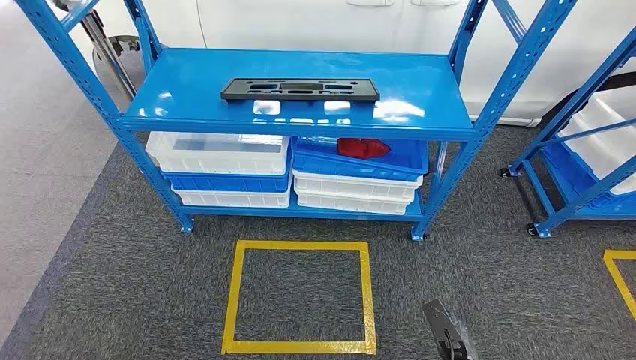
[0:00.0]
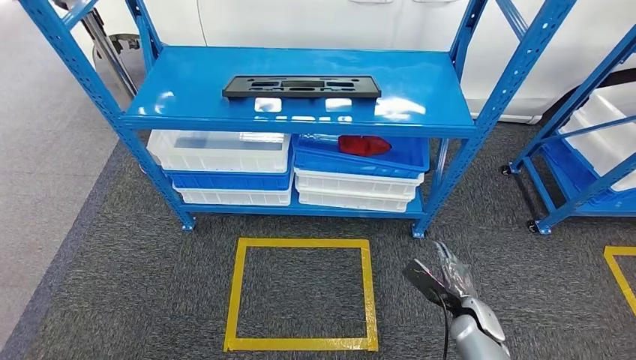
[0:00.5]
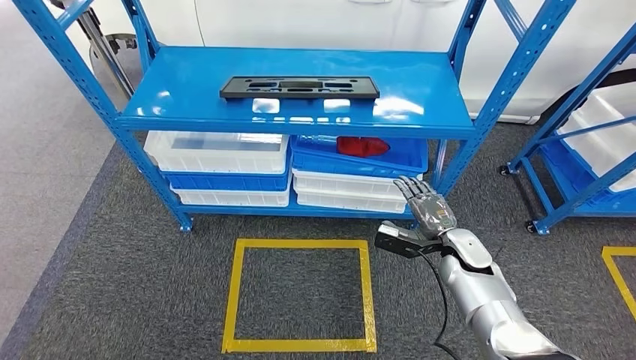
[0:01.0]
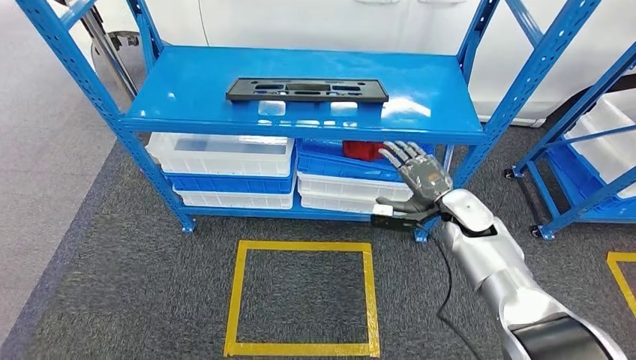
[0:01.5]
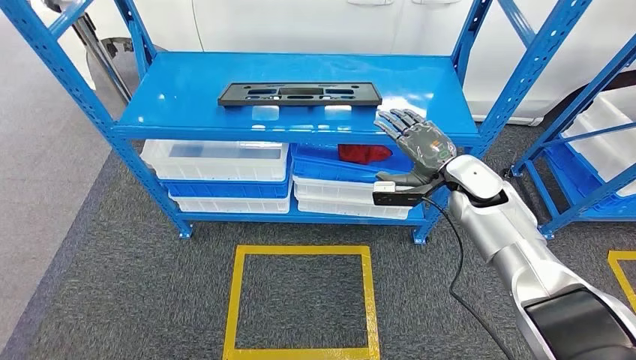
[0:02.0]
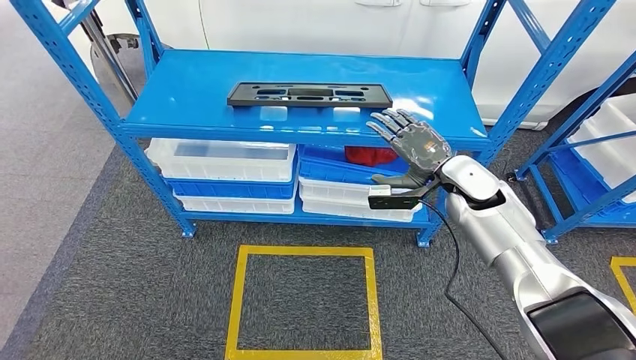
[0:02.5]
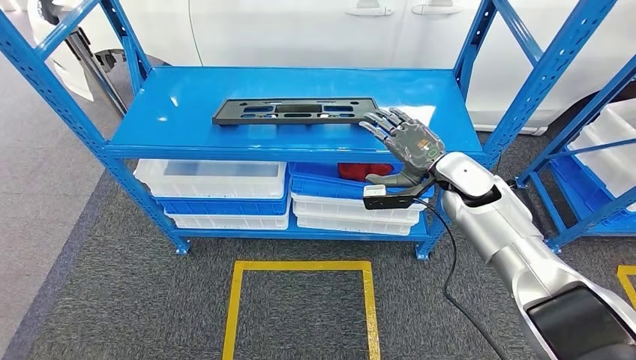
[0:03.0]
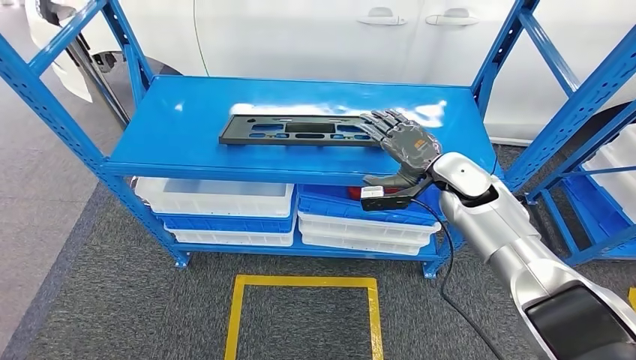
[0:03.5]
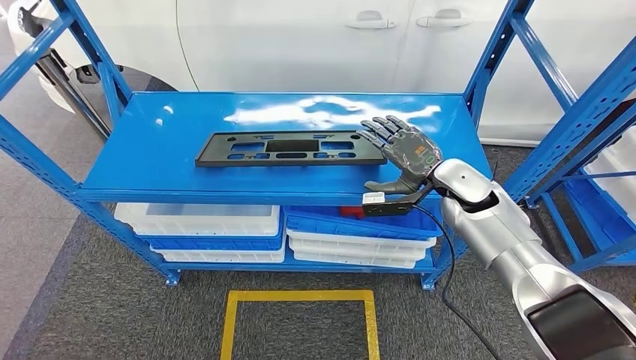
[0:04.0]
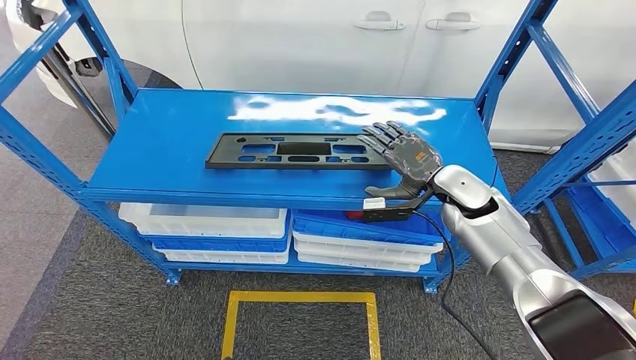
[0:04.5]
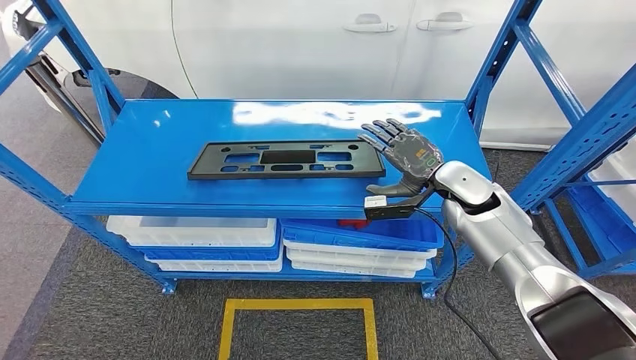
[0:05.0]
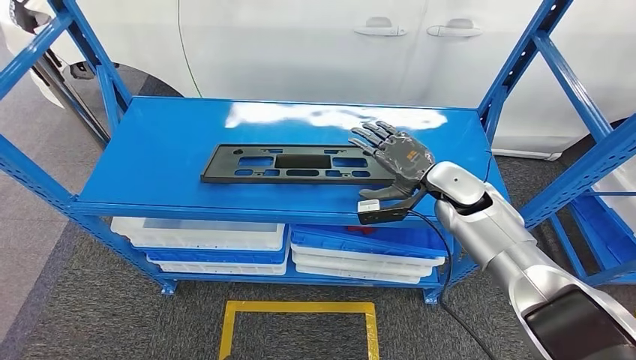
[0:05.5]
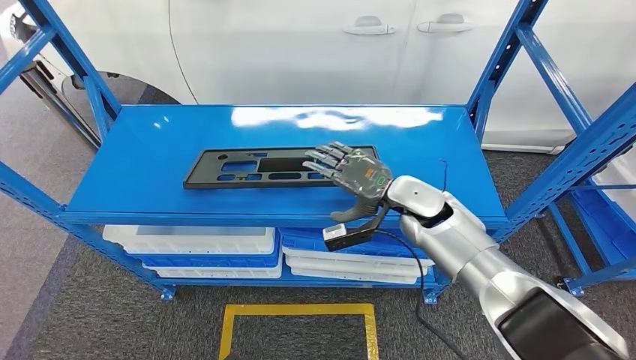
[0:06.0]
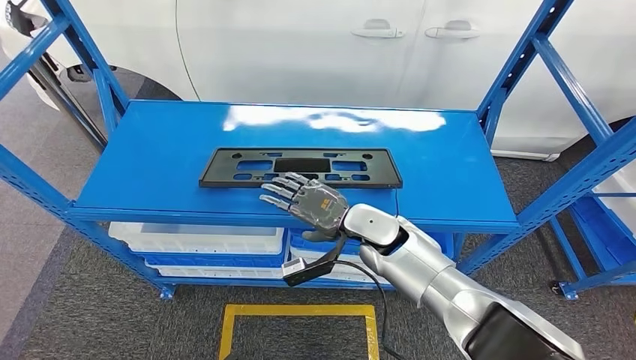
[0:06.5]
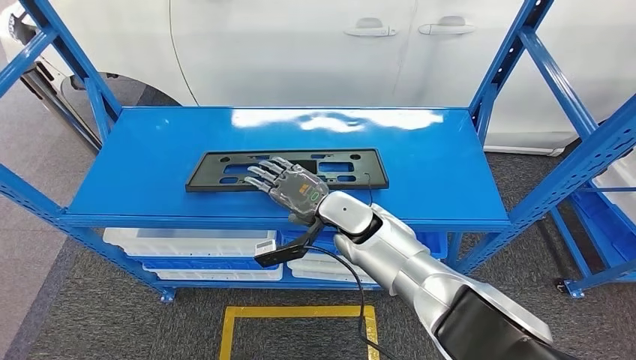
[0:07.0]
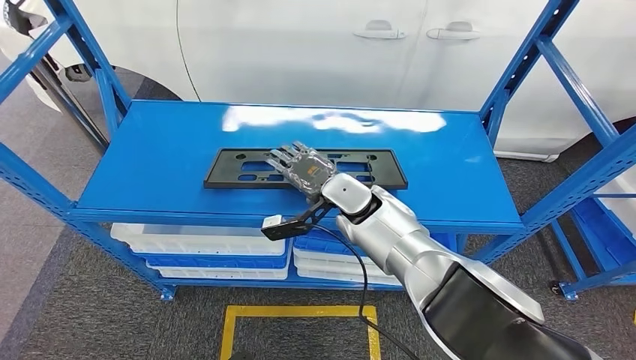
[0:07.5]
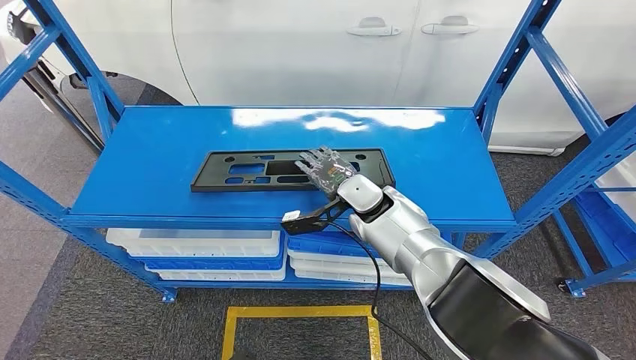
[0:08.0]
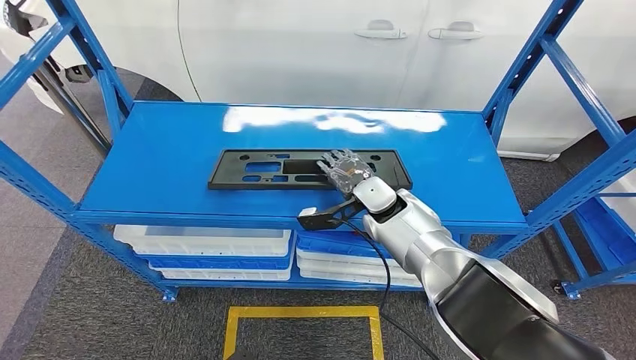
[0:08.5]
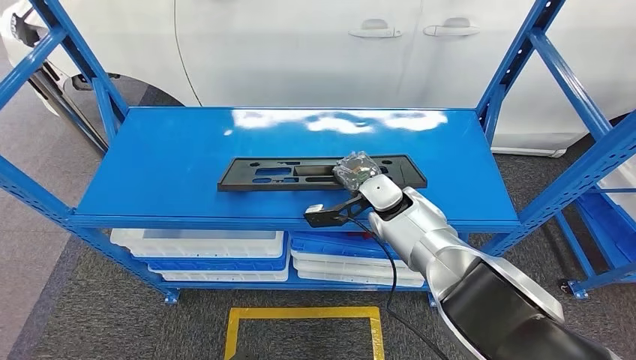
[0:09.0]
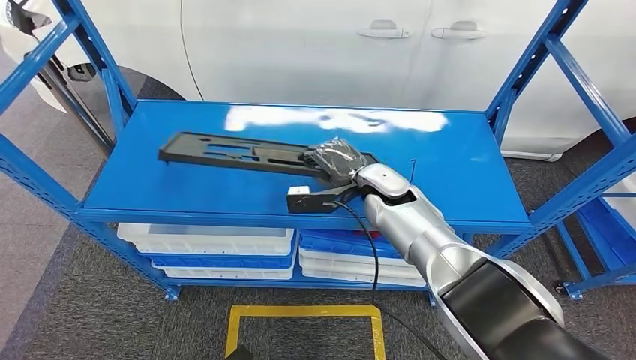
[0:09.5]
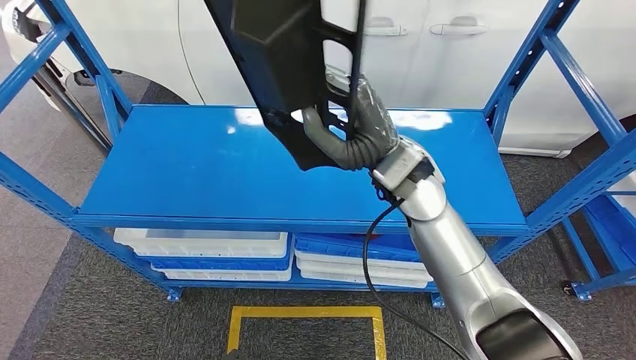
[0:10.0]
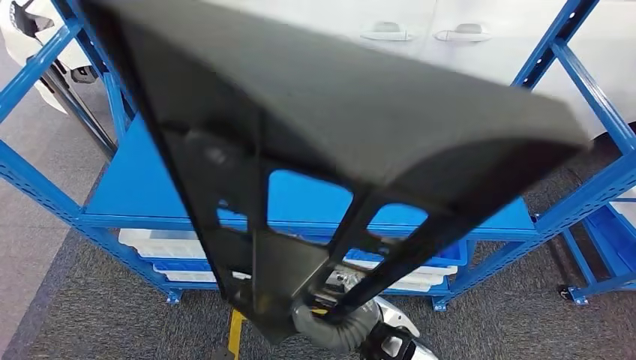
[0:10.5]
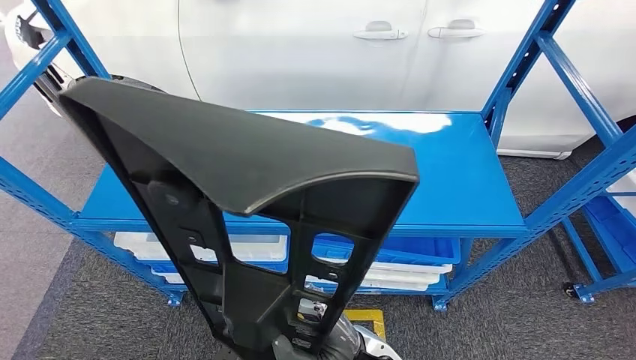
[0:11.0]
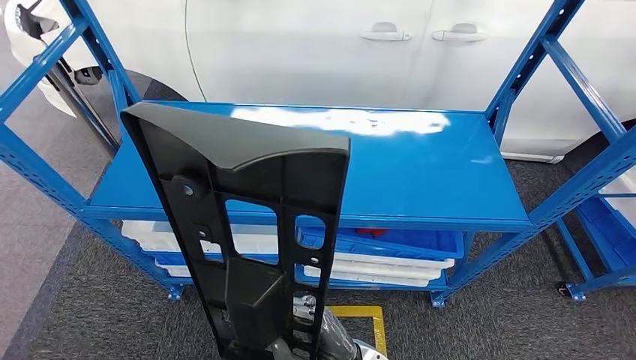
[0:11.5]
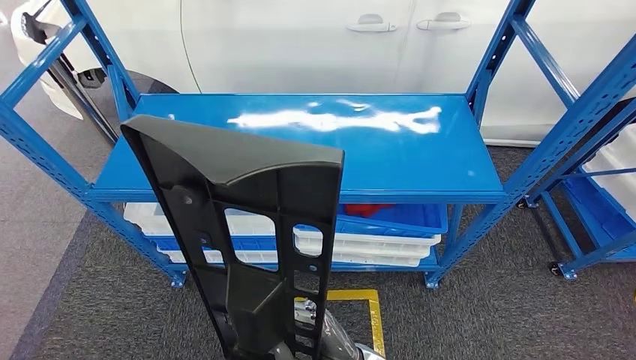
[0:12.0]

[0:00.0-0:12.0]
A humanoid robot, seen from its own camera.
Step, 0:00.0 to 0:11.0: Pick up the large material from the shelf.

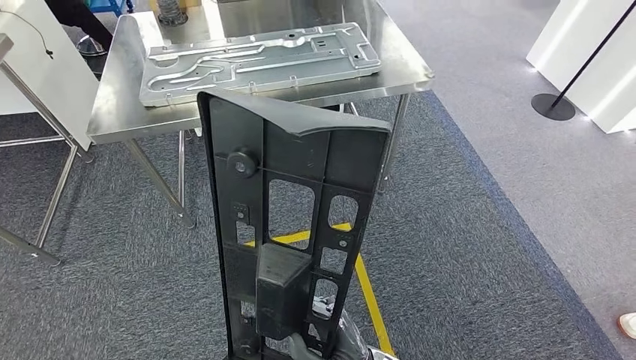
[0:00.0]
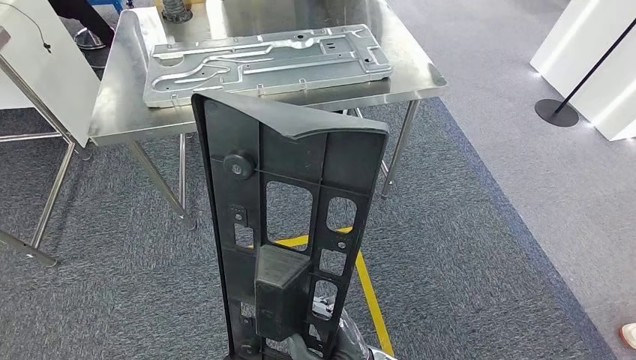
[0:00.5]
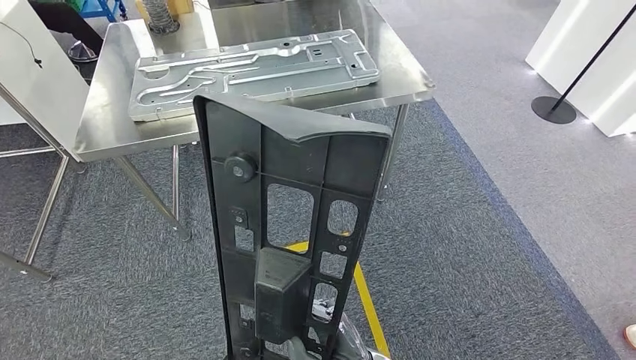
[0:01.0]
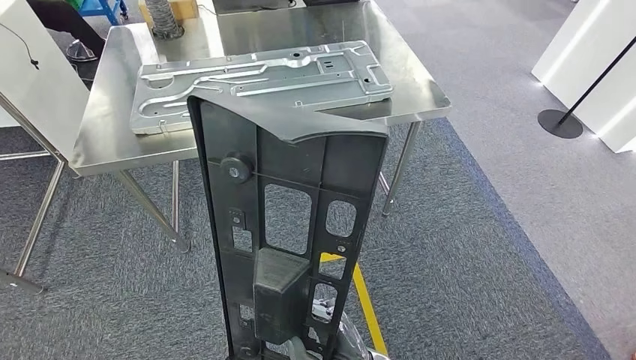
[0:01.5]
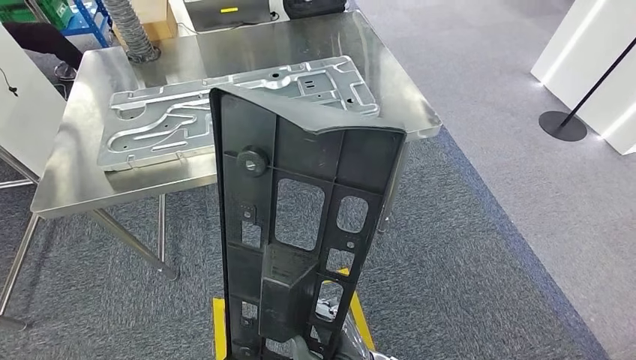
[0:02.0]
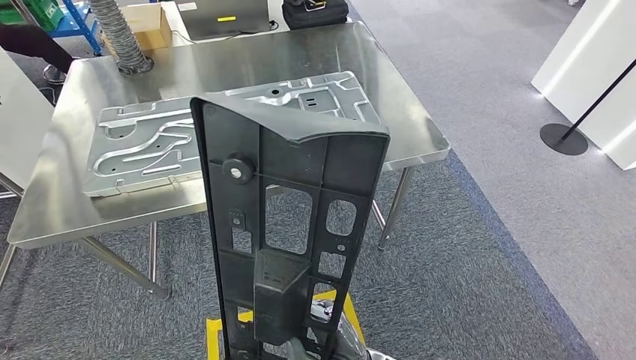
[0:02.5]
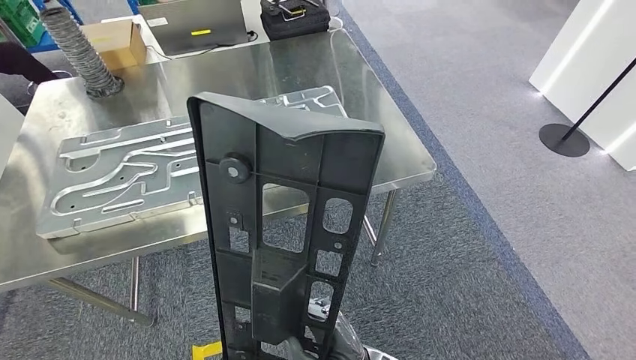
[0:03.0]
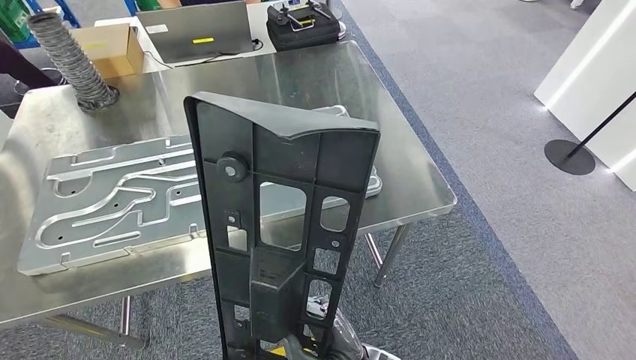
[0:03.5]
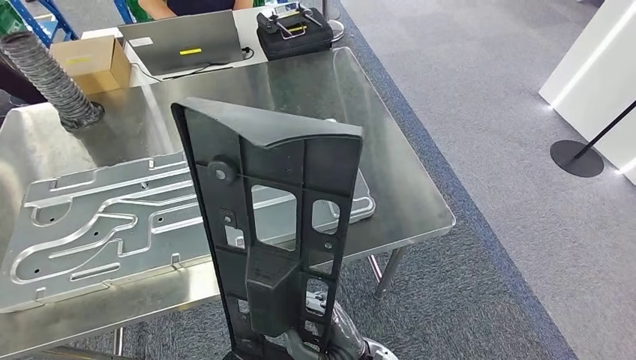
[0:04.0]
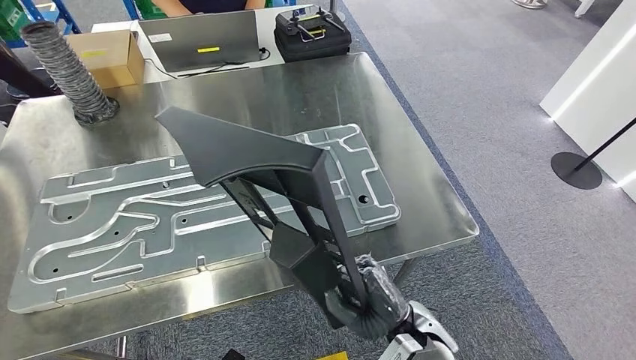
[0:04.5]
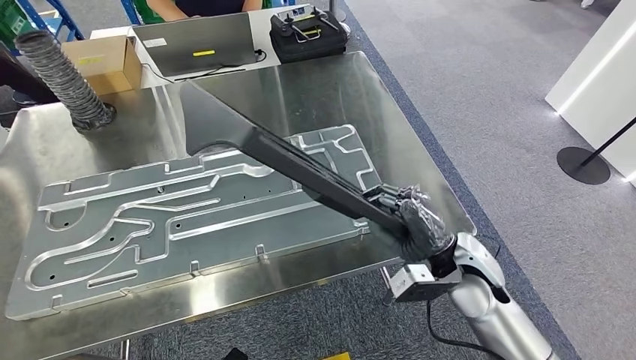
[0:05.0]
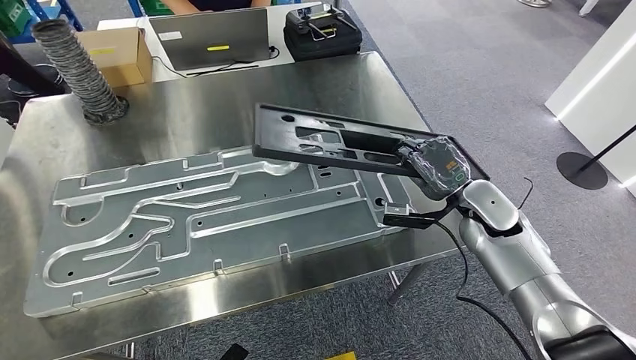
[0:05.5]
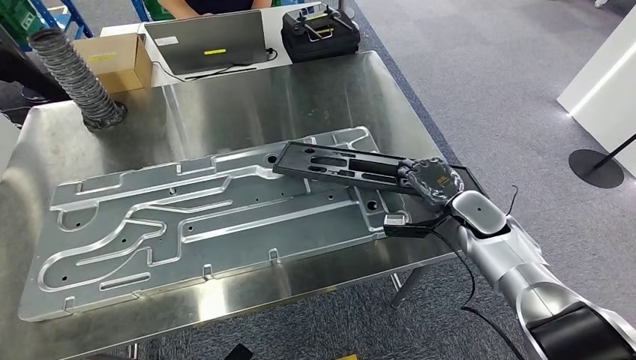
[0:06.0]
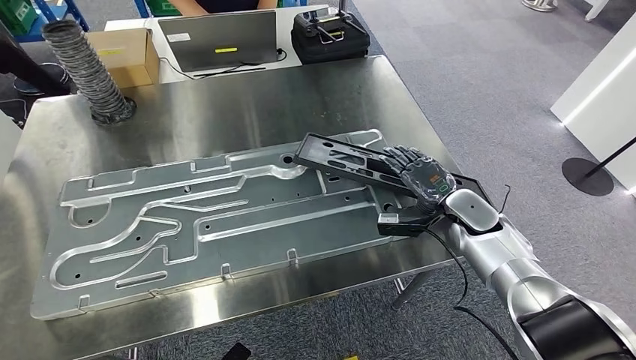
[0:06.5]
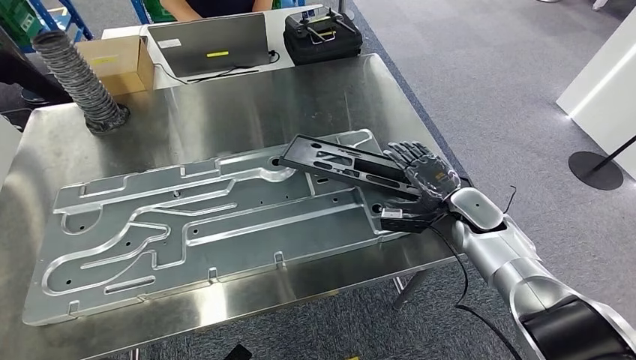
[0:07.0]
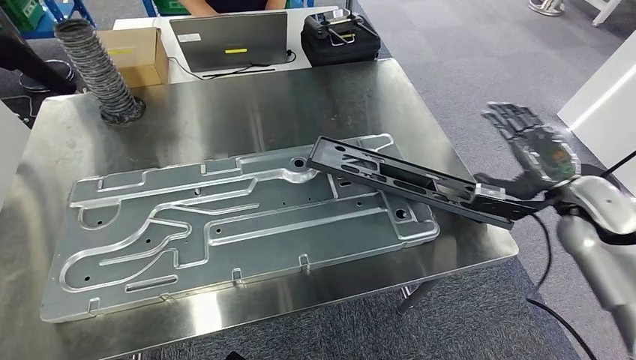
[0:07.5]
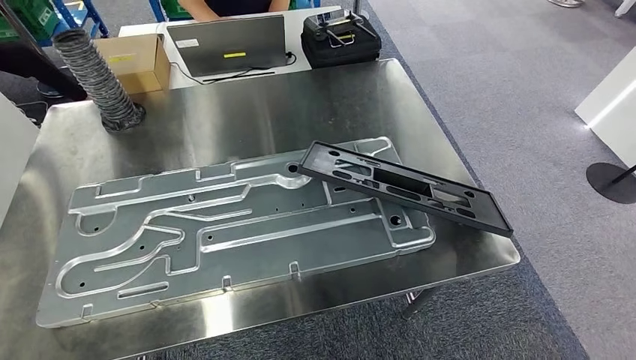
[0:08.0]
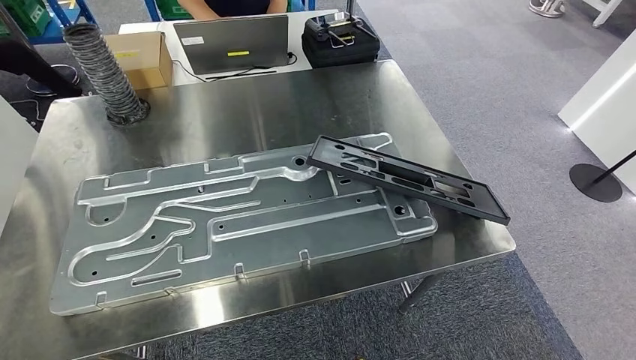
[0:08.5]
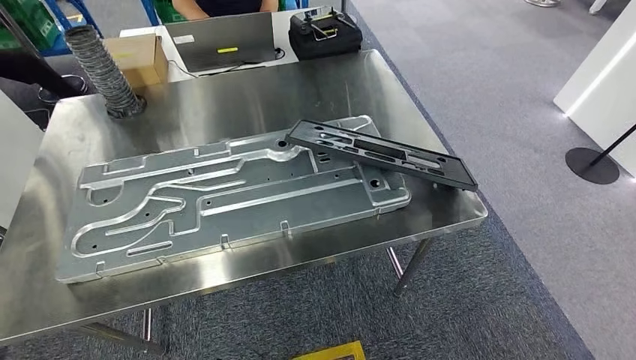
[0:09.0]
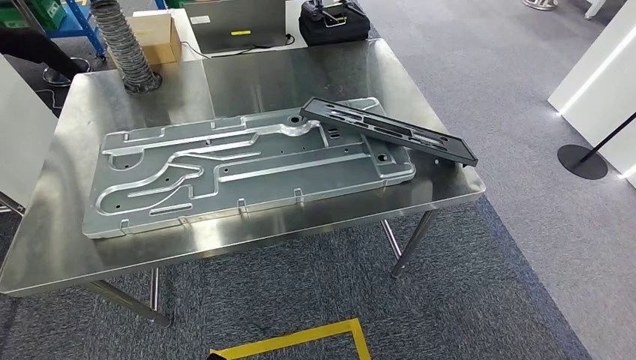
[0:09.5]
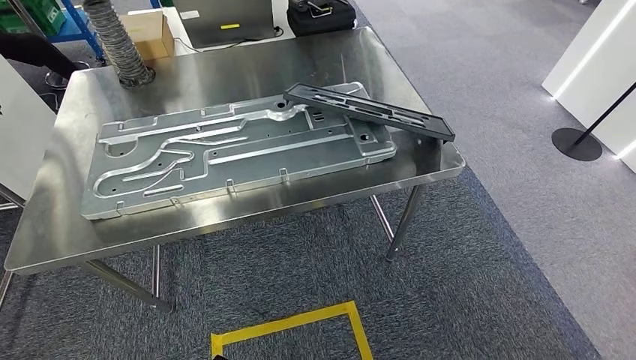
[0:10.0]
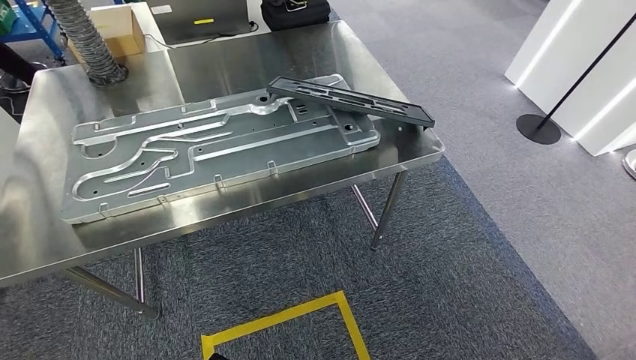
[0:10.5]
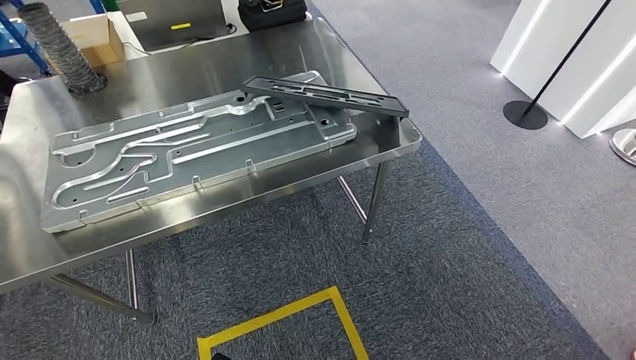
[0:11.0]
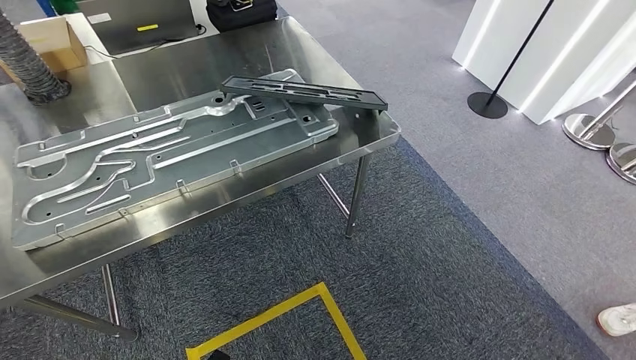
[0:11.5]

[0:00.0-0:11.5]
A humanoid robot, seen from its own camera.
Step, 0:00.0 to 0:05.0: Move the large material to the workbench.
Step, 0:05.5 to 0:08.5: Insert the large material into the corresponding slot on the workbench.
